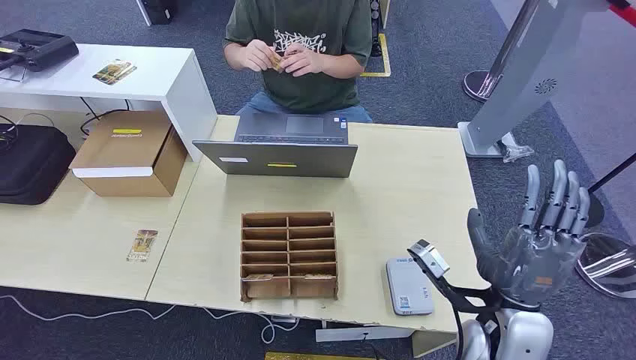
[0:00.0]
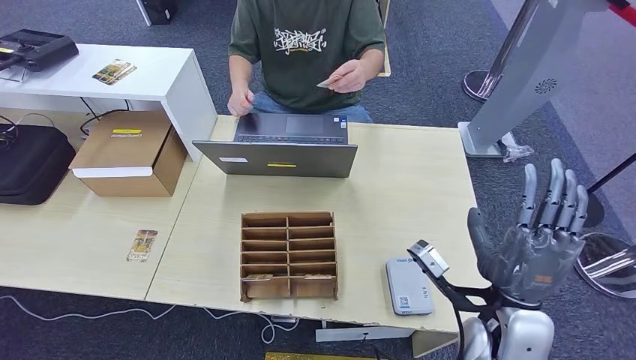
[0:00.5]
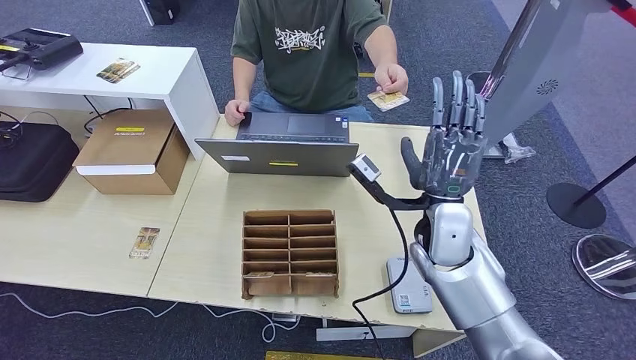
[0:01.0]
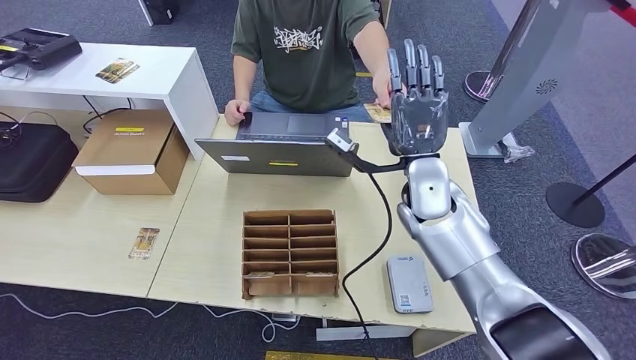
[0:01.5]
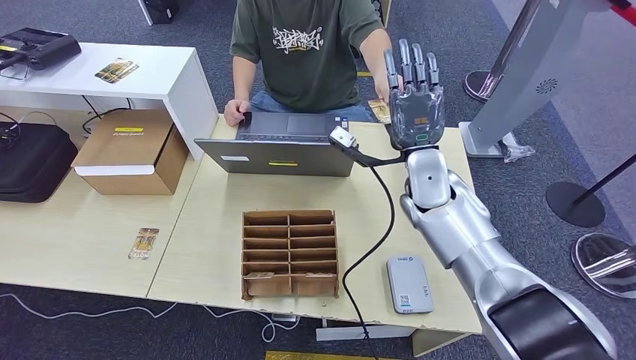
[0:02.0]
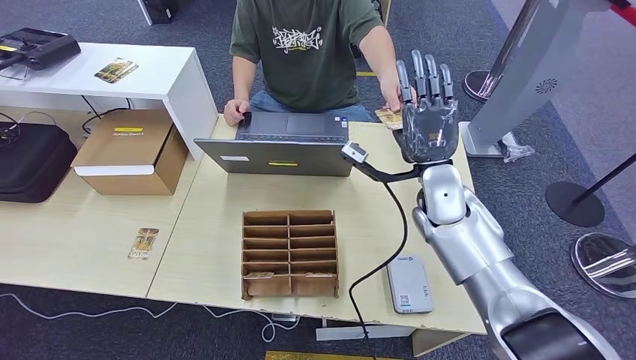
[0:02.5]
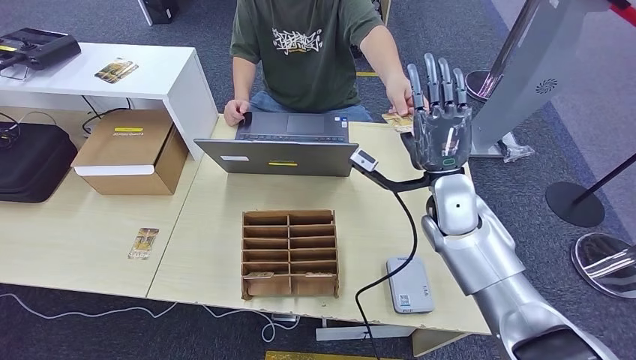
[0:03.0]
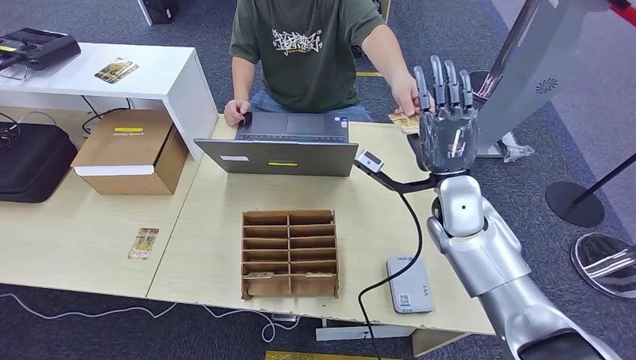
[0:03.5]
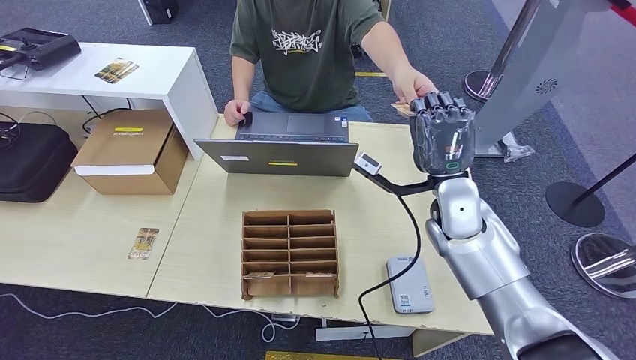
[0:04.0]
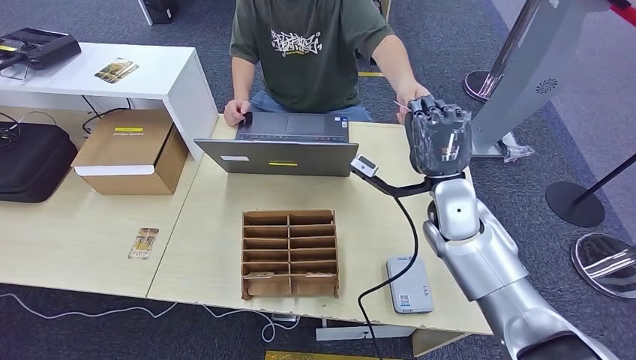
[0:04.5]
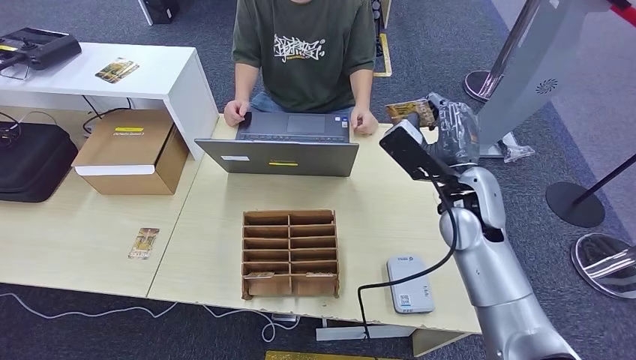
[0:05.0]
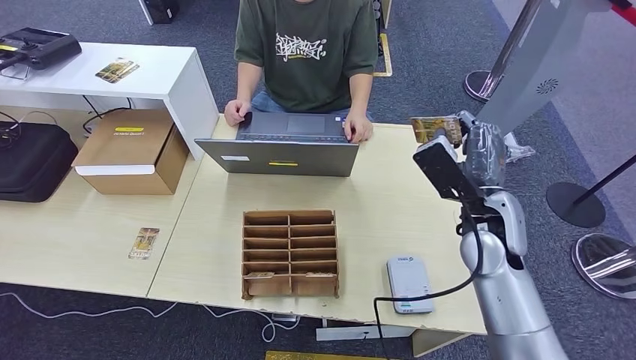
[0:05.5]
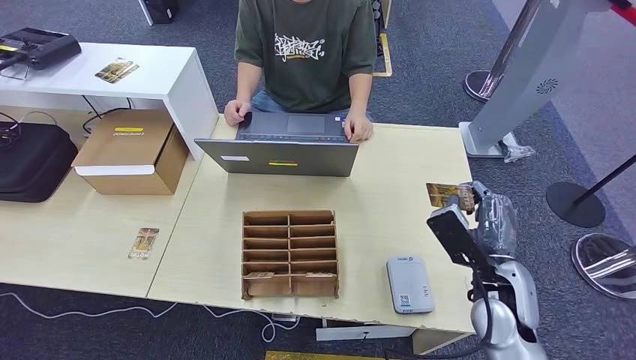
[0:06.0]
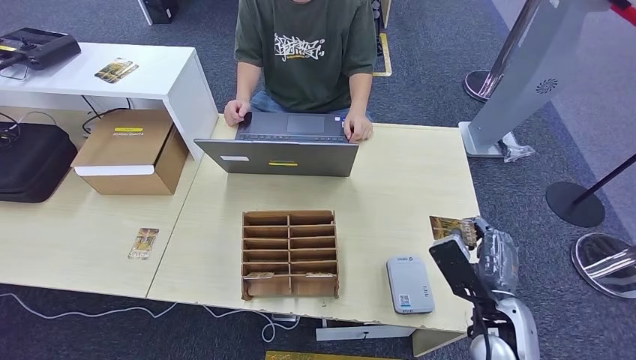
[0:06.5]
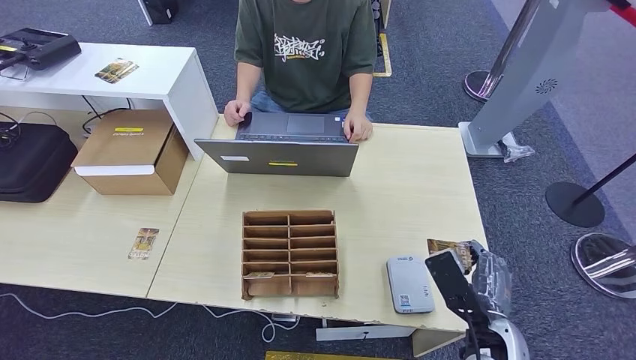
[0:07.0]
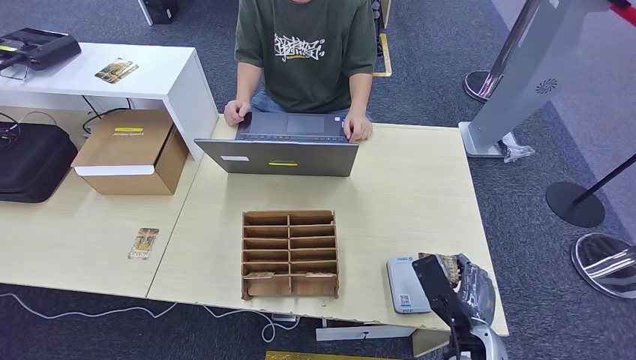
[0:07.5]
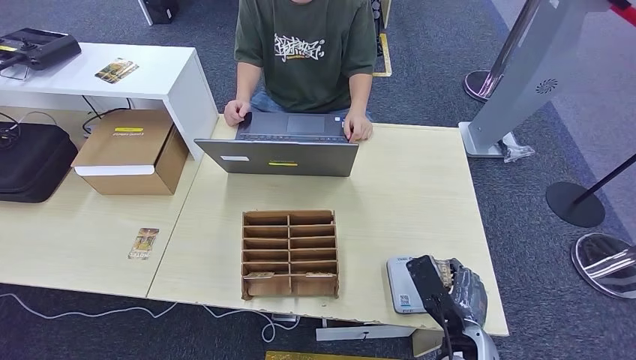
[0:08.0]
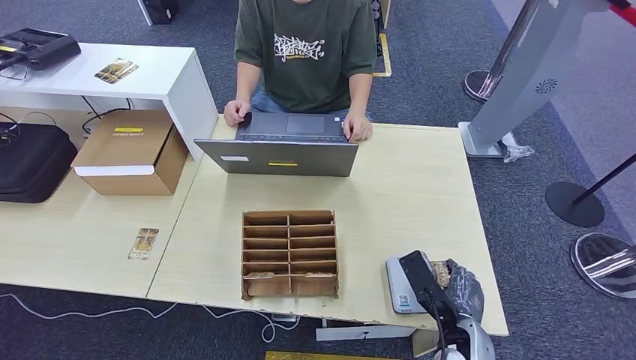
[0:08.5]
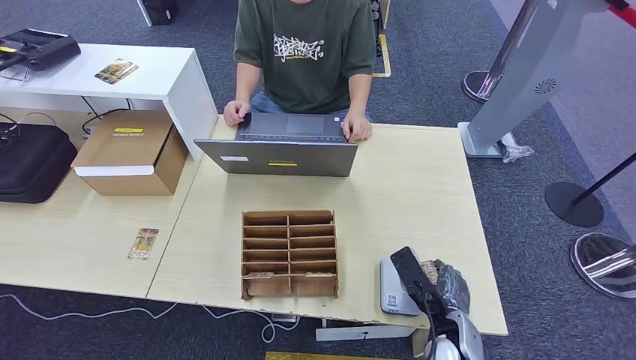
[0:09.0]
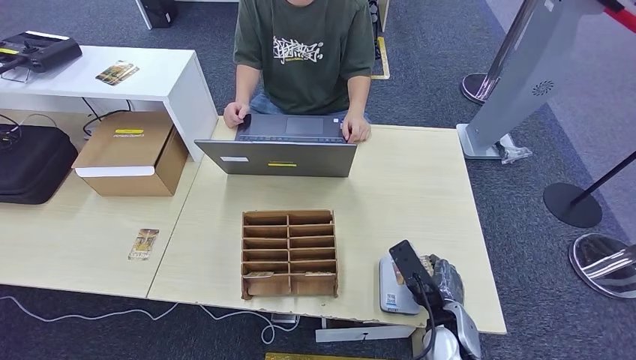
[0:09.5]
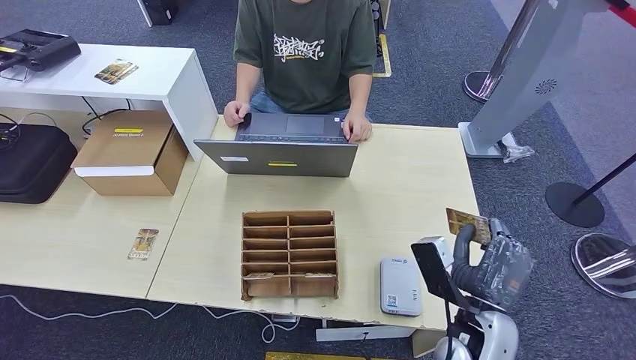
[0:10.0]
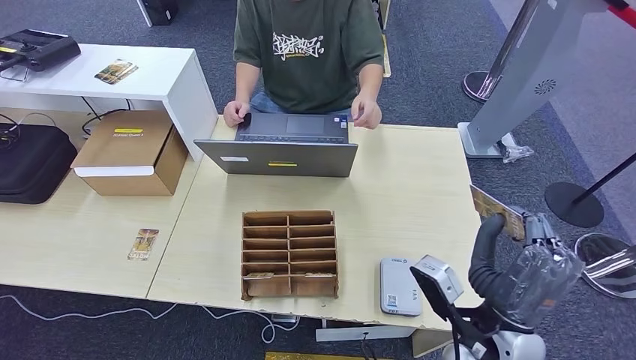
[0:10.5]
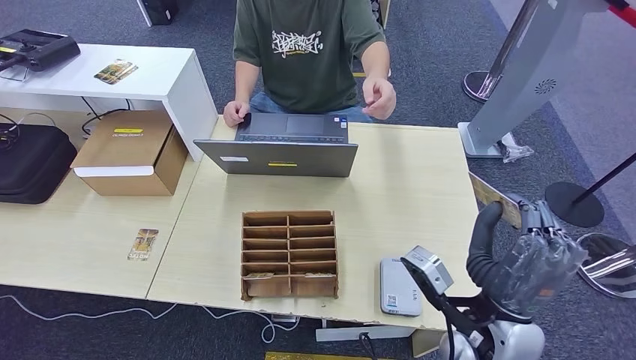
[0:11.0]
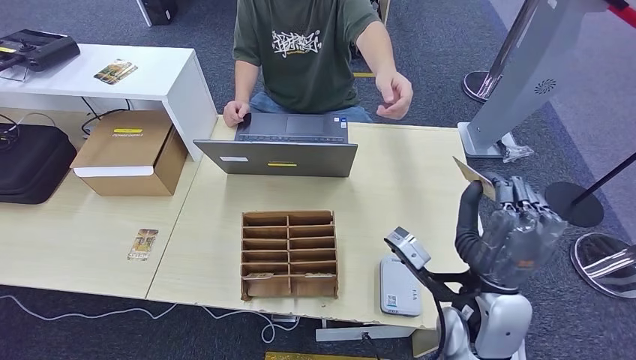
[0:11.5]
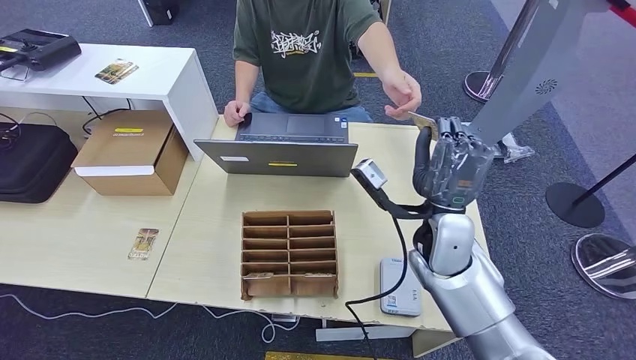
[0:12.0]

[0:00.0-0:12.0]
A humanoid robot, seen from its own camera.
Step, 0.0 to 4.0 s: Take the ID card from the person's hand.
Step, 5.0 to 9.0 s: Place the ID card on the card reader.
2.0 to 4.0 s: The right hand changes place by roughly 5 cm.
4.0 to 6.0 s: The right hand heads backward, downward and to the right, covering about 15 cm.
6.0 to 8.0 s: The right hand is displaced downward, backward and to the left by roughly 15 cm.
8.0 to 10.0 s: The right hand goes some 5 cm upward.
10.0 to 12.0 s: The right hand moves forward and upward, about 15 cm.

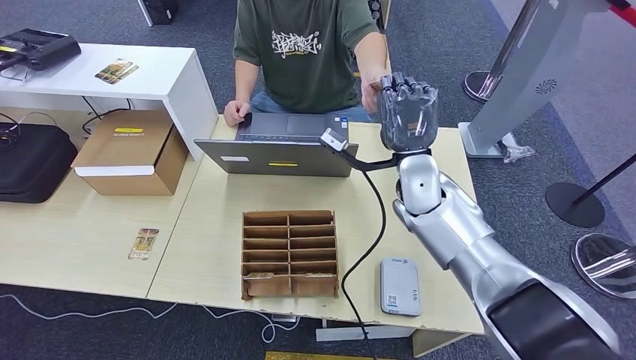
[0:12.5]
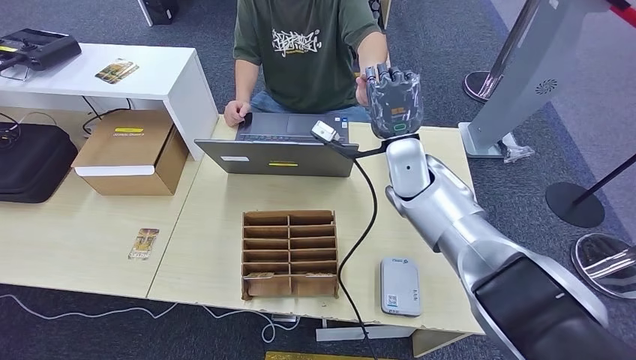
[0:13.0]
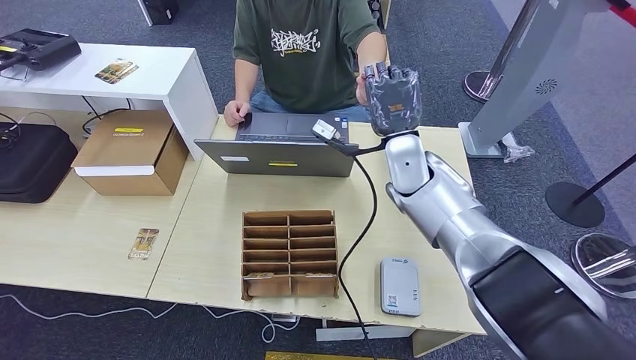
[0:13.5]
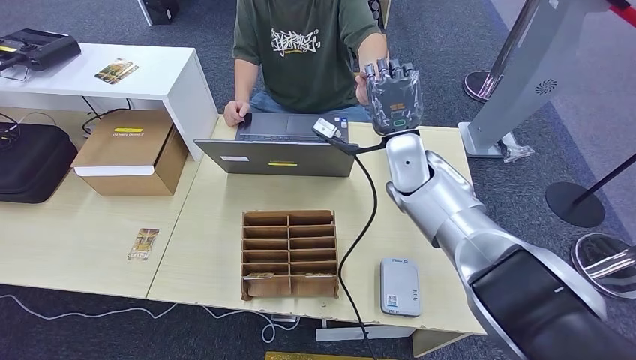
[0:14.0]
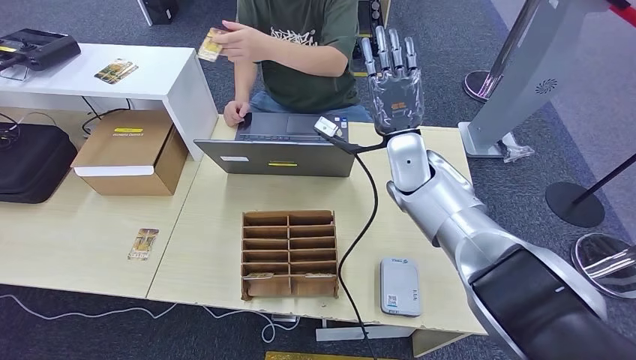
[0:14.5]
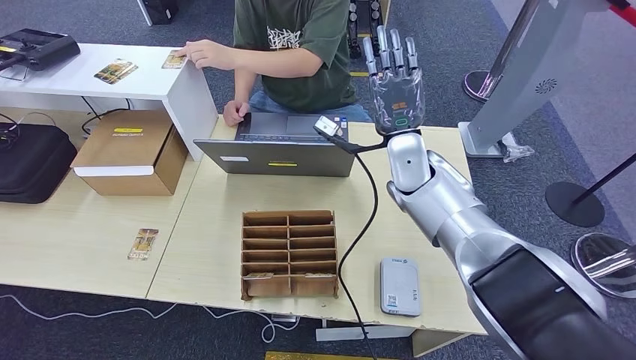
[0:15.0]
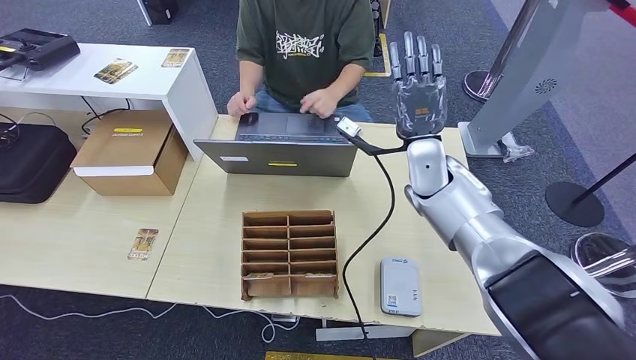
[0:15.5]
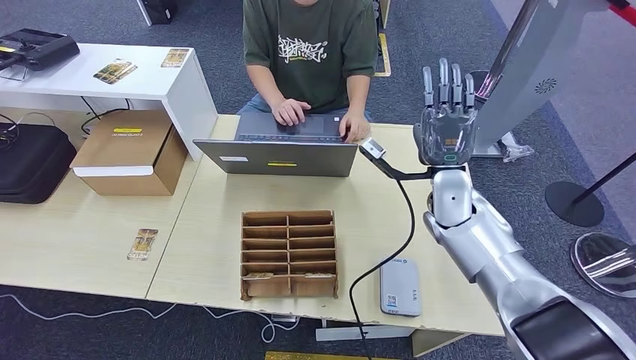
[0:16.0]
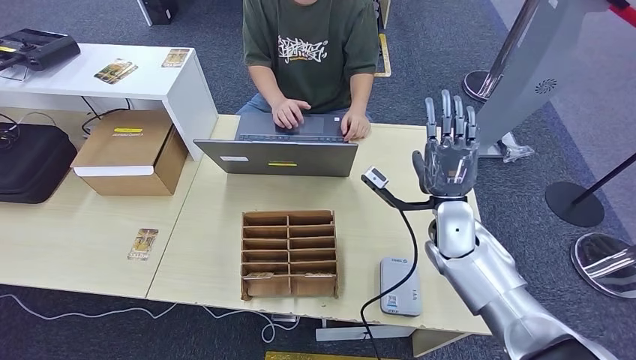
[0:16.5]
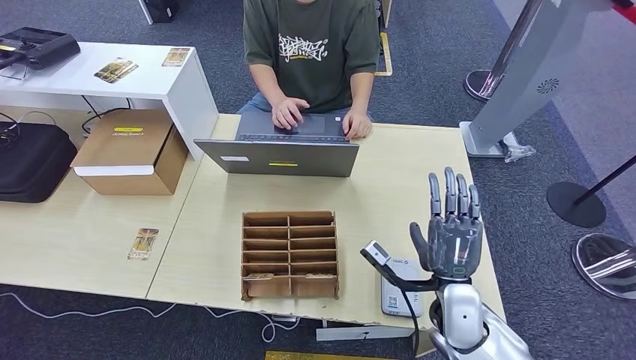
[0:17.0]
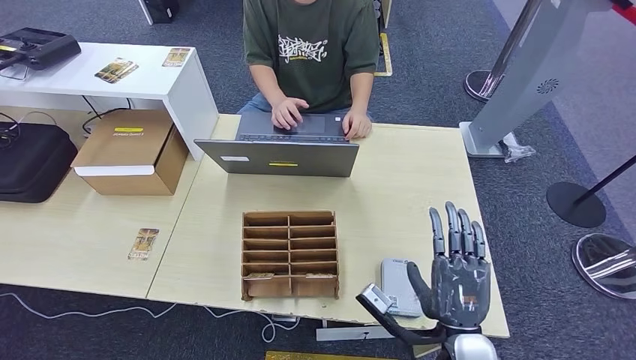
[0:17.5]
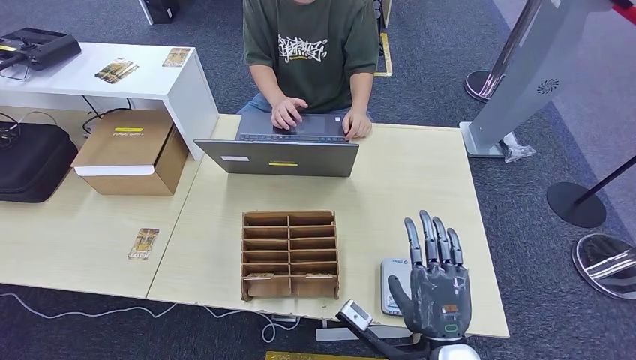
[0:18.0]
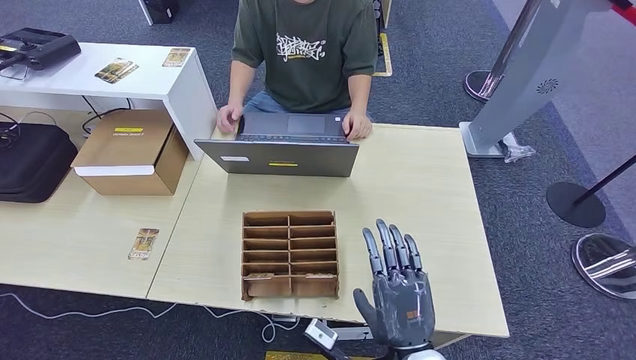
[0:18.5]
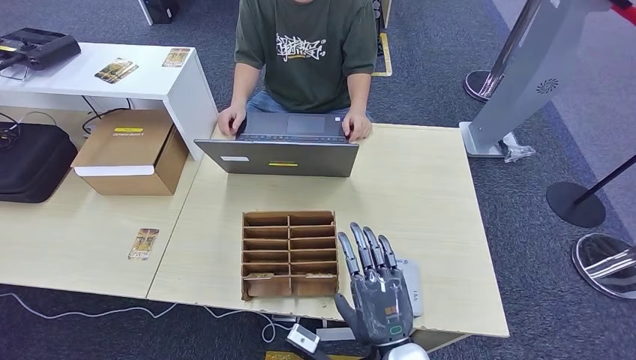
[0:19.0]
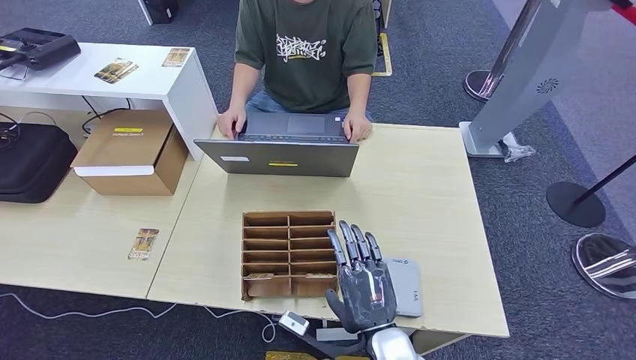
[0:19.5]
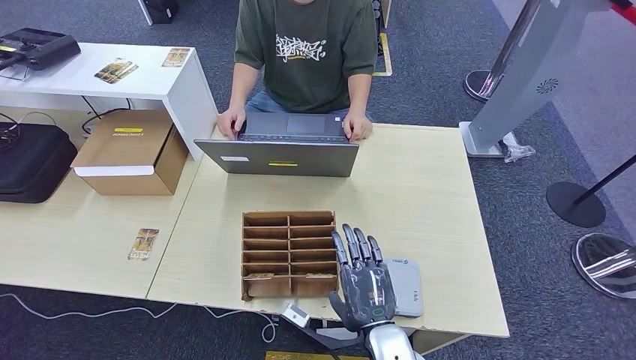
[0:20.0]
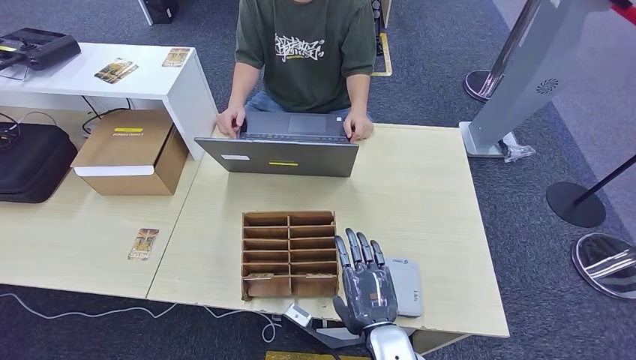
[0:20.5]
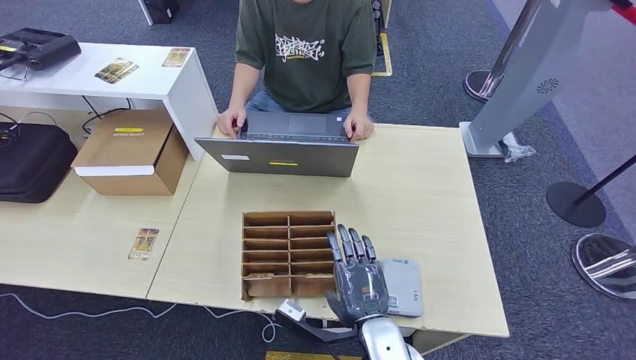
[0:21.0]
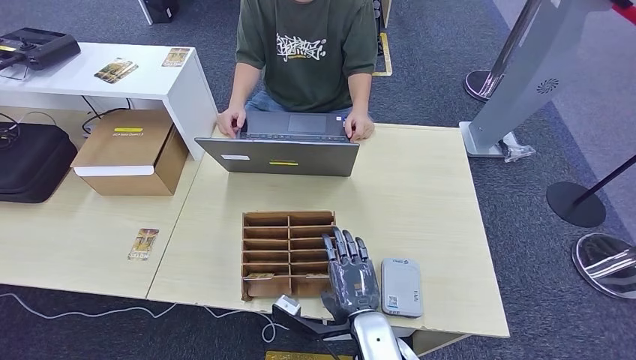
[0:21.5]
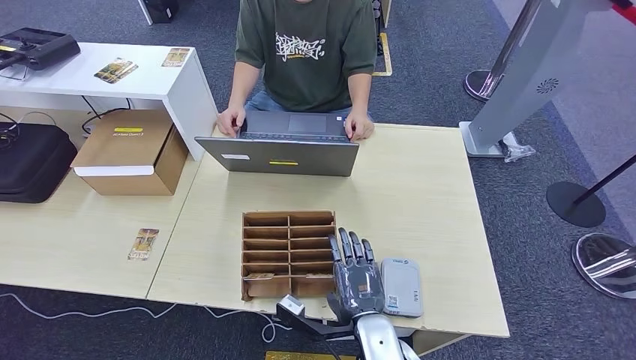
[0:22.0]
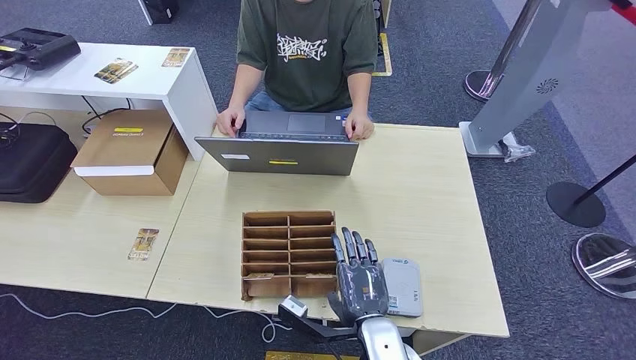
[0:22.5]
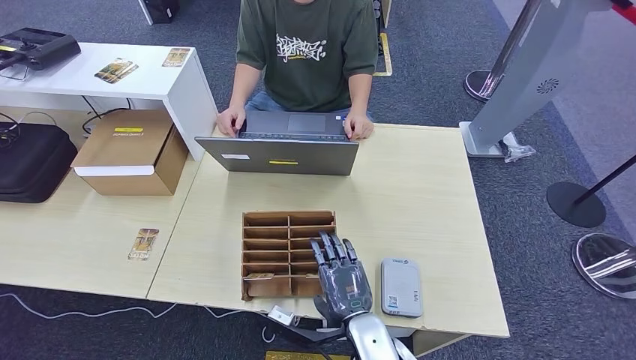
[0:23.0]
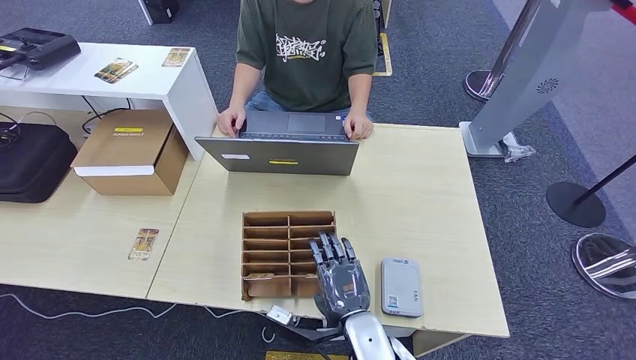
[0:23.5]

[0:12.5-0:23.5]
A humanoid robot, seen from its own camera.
Step, 12.5 to 15.5 s: Hand the ID card to the person.
12.5 to 14.5 s: The hands move only a little.
14.5 to 16.0 s: The right hand is displaced to the right by roughly 5 cm.
16.0 to 18.0 s: The right hand heads backward, covering about 25 cm.
18.0 to 20.0 s: The right hand moves to the left, about 10 cm.
20.0 to 23.5 s: There are only small adjustments of the hands.
